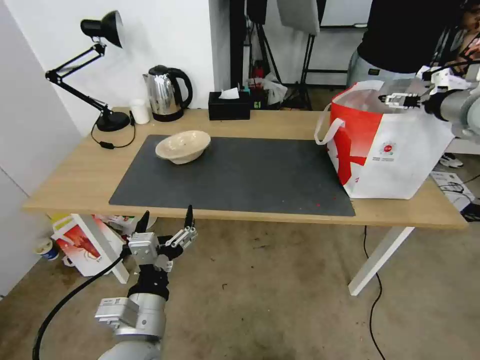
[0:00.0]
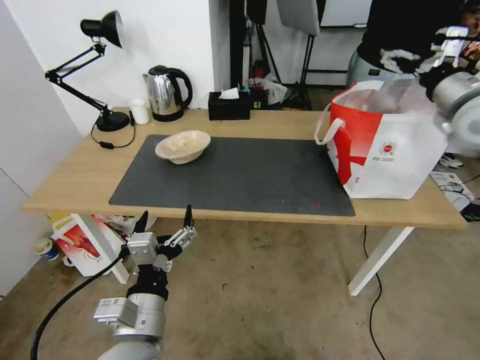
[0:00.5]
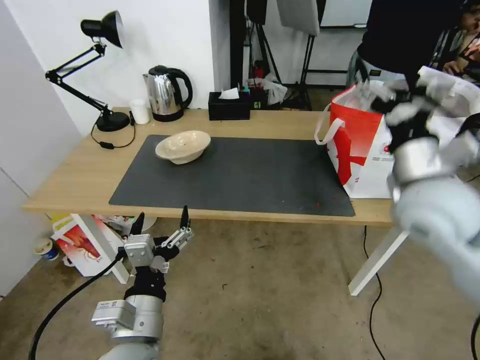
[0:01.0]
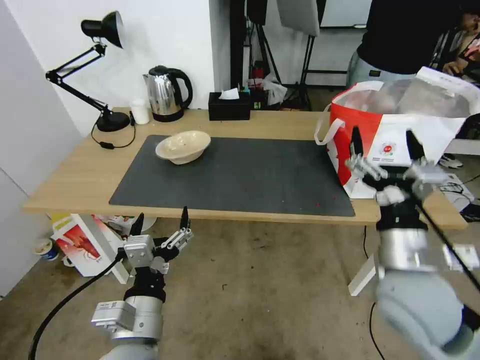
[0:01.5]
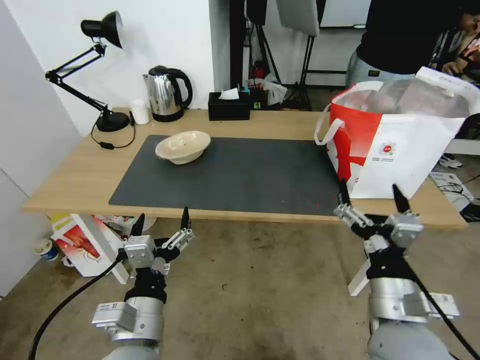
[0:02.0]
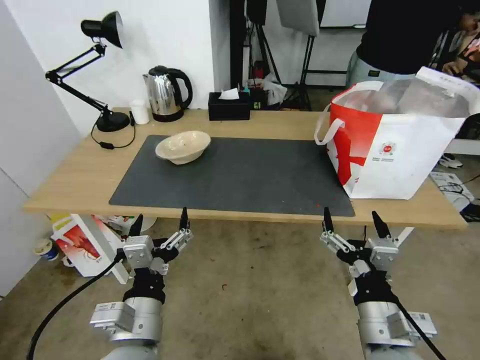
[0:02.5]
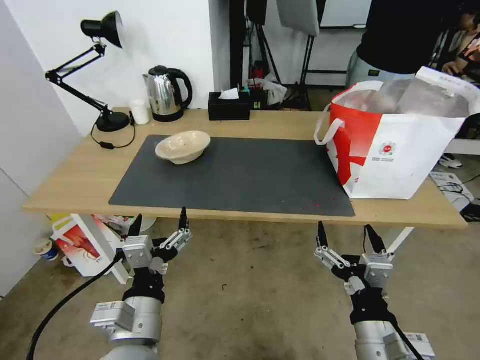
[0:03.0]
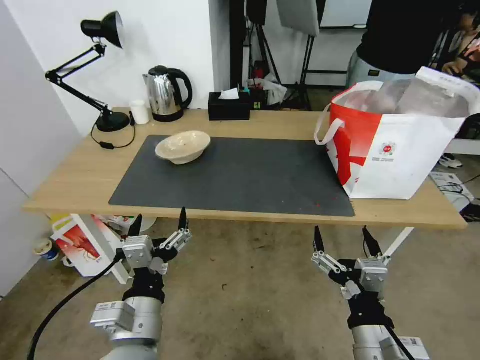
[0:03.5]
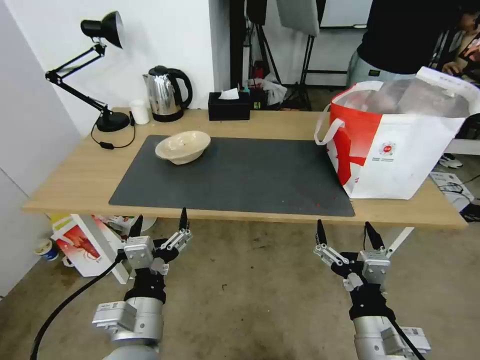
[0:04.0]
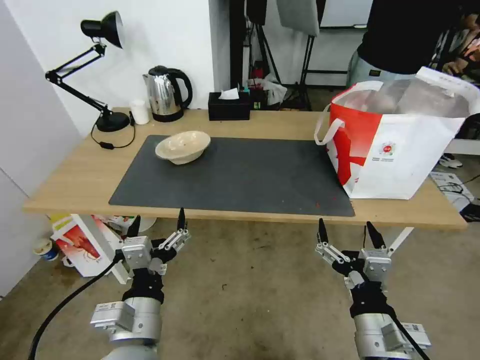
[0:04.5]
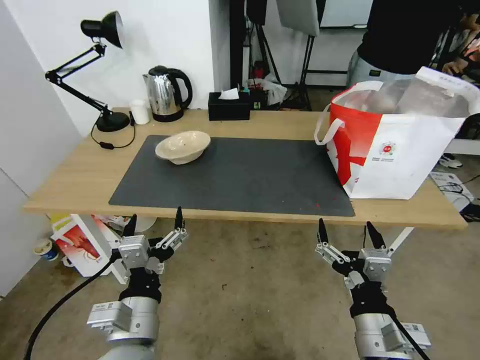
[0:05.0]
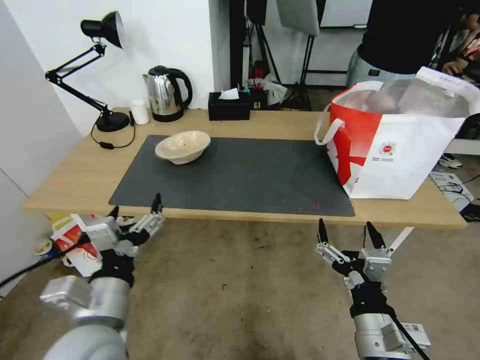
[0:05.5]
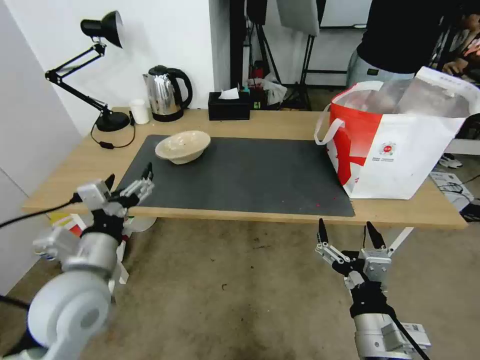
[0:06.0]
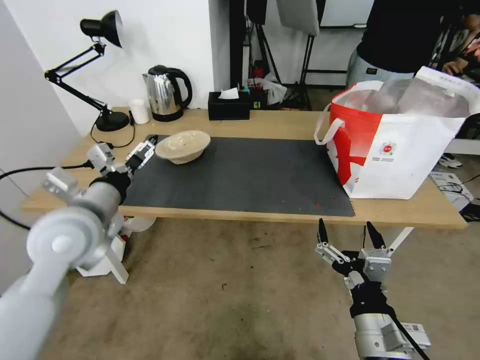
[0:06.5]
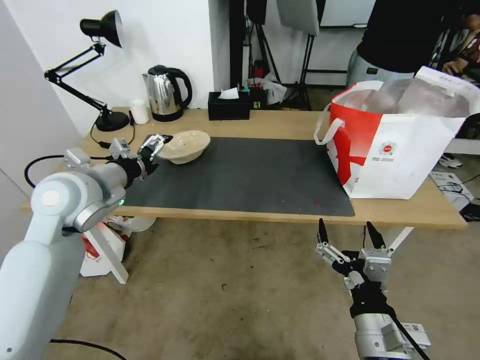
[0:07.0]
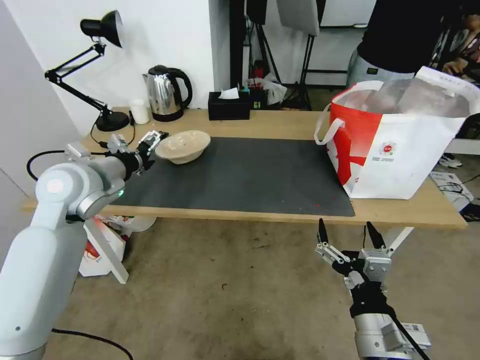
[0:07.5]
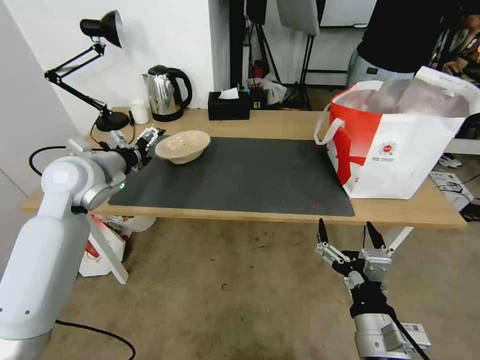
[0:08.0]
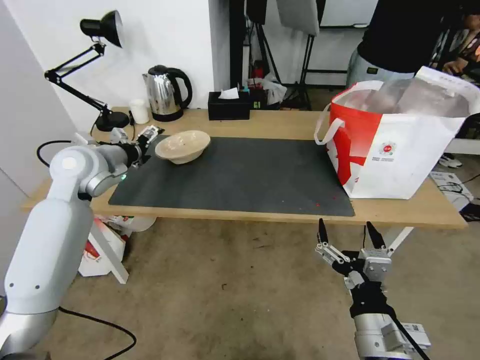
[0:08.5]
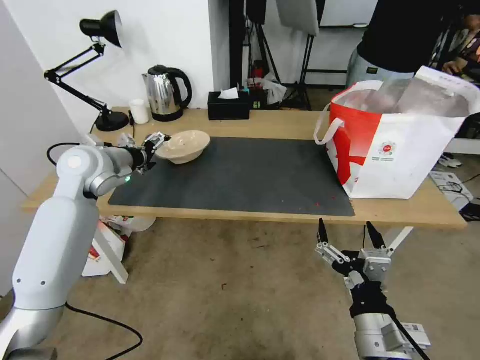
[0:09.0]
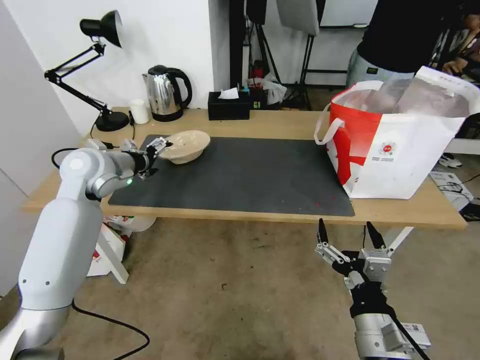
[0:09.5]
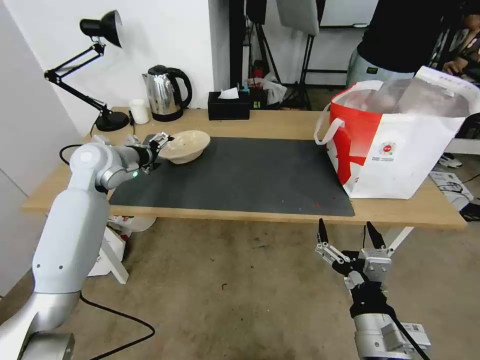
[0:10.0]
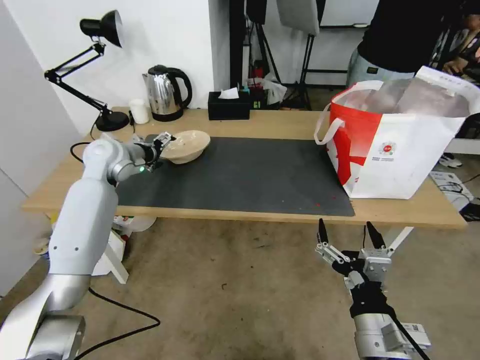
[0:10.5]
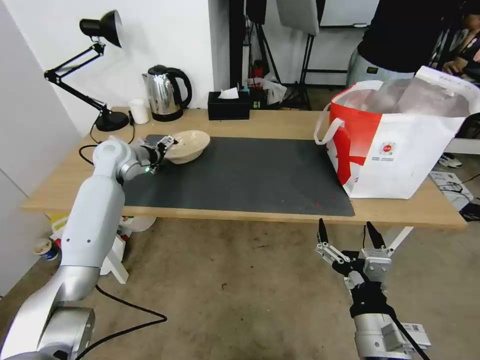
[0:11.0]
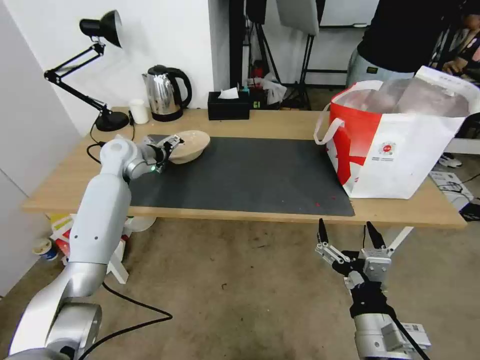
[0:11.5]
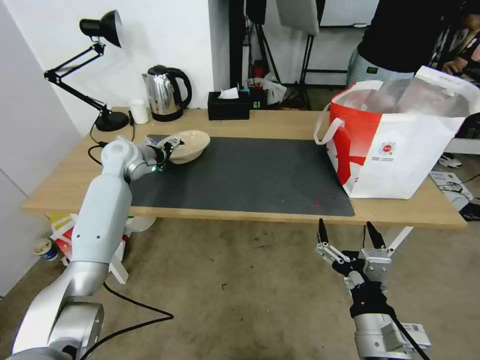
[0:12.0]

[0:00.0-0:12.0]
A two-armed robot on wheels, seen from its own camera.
Task of the whole recording: Pick up the trash from the table and place it into the takeout bag.
0:00.0 to 0:02.0: The right gripper moves backward, to the left and downward, some 40 cm.
0:02.0 to 0:04.0: The right gripper ends up roughly 5 cm from where it was.
0:04.0 to 0:06.0: The left gripper goes some 15 cm to the left, forward and upward.
0:06.0 to 0:08.0: The left gripper is displaced forward by roughly 20 cm.
0:08.0 to 0:10.0: The left gripper is displaced forward by approximately 5 cm.
0:10.0 to 0:12.0: The left gripper moves forward, approximately 10 cm.

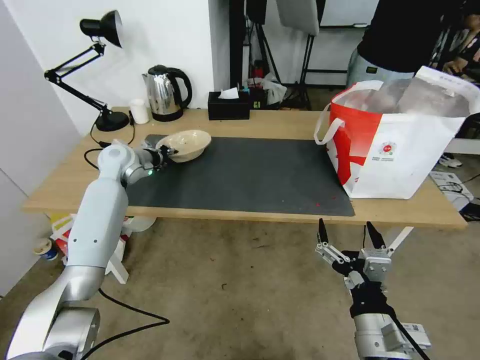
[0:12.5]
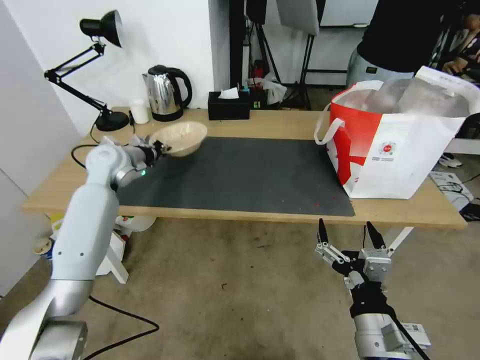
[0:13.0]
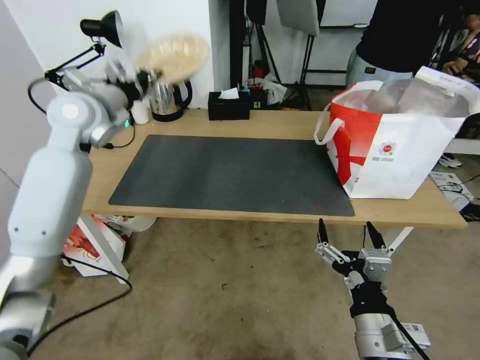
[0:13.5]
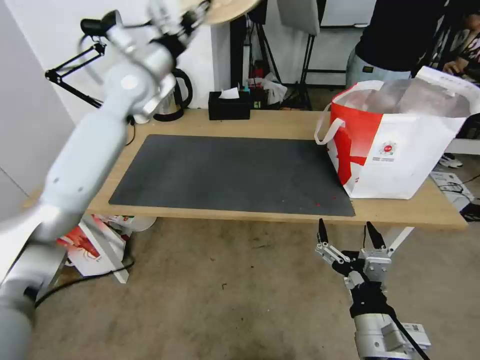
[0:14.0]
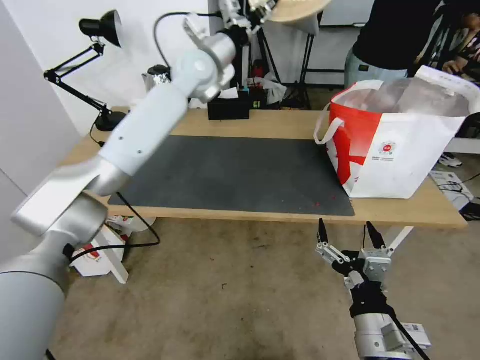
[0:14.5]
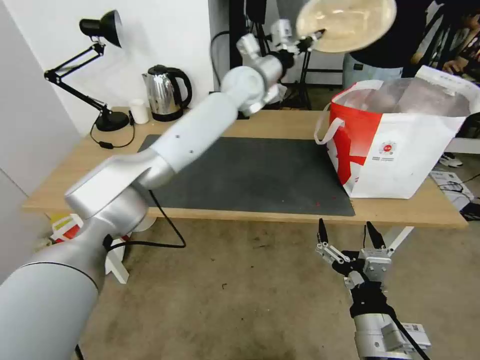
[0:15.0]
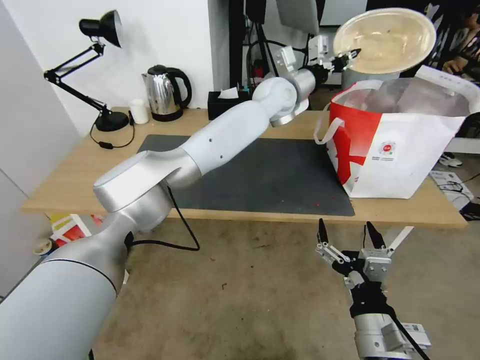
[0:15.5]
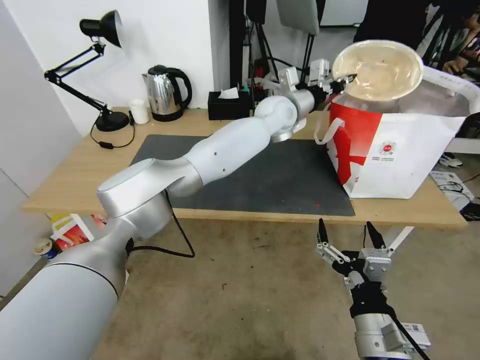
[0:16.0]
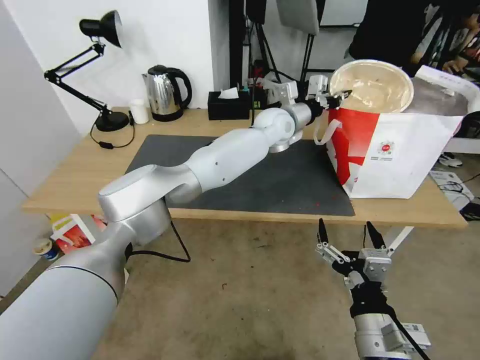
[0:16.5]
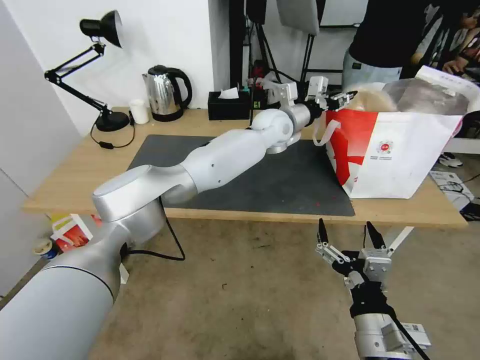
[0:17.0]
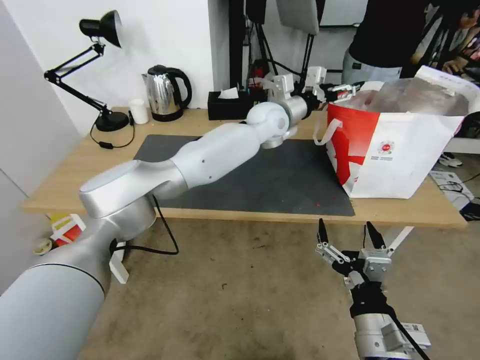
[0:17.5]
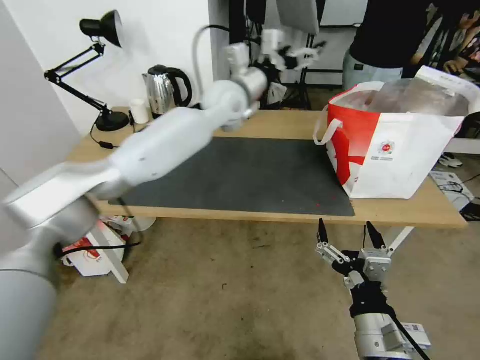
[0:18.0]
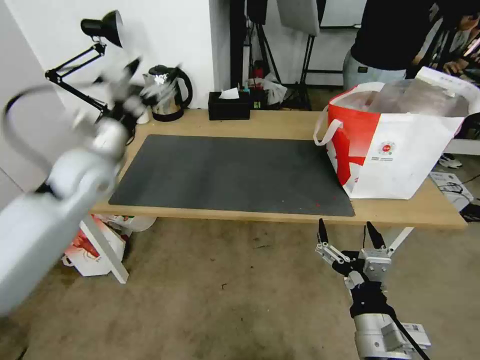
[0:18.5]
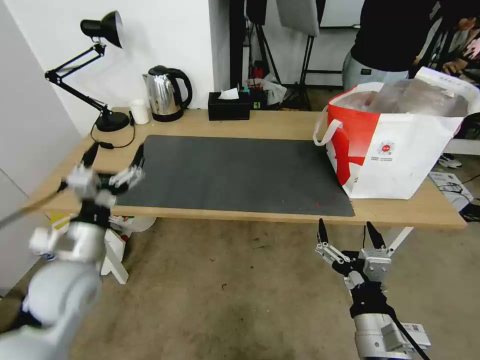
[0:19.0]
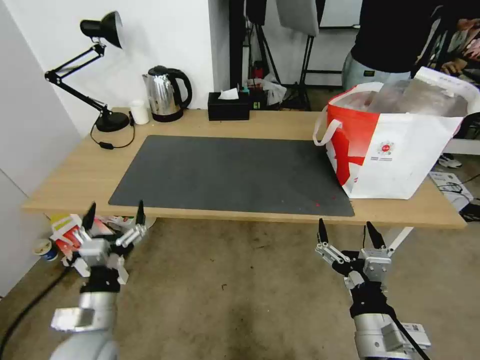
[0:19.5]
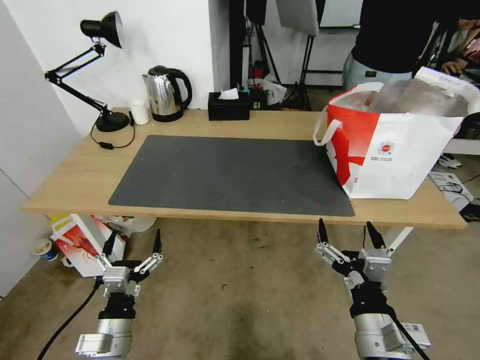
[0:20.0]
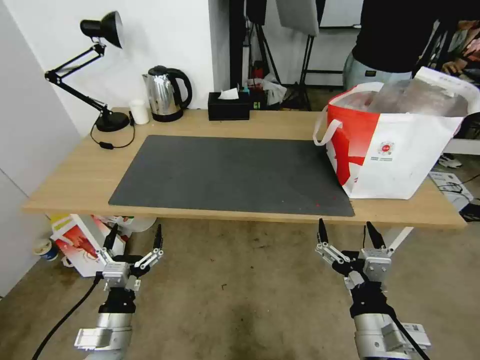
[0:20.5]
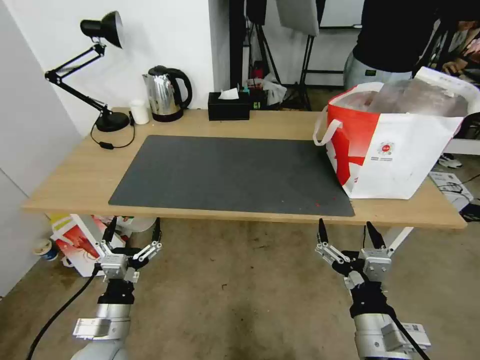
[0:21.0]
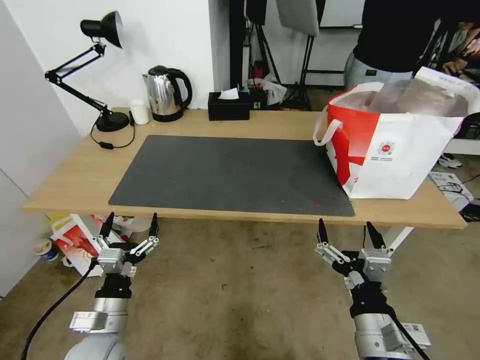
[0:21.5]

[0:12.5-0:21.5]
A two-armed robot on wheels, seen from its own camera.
Task of the whole recording: Pick up the trash from the table and place it into the takeout bag.
0:12.5 to 0:14.5: The left gripper shifts about 30 cm to the right and upward.
0:14.5 to 0:17.0: The left gripper is displaced to the right and downward by roughly 20 cm, and opens its fingers.
0:17.0 to 0:19.5: The left gripper is displaced backward, to the left and downward by approximately 60 cm, and opens.

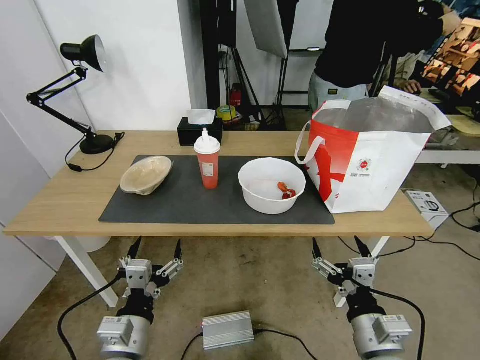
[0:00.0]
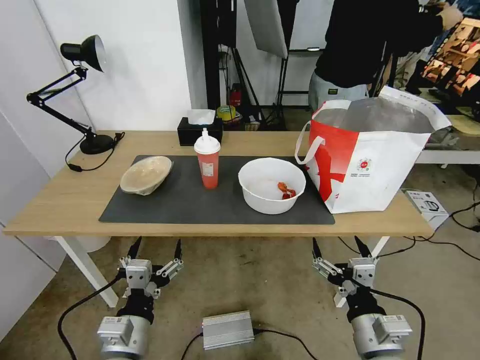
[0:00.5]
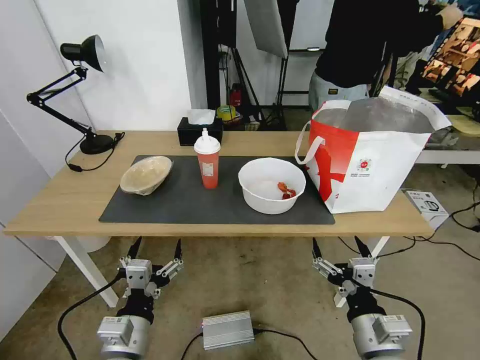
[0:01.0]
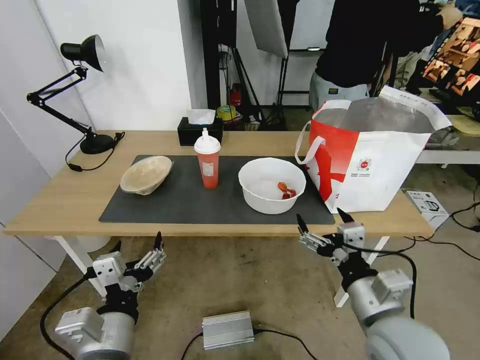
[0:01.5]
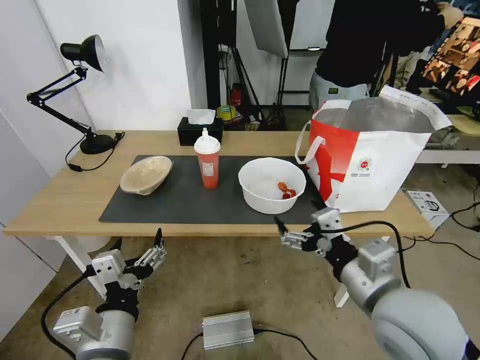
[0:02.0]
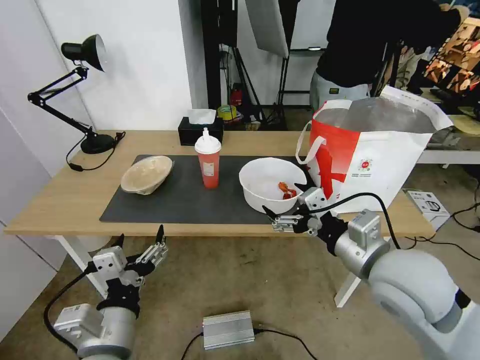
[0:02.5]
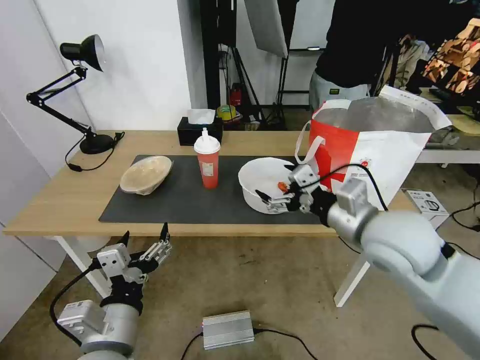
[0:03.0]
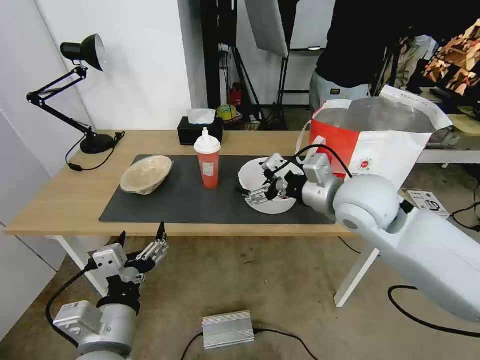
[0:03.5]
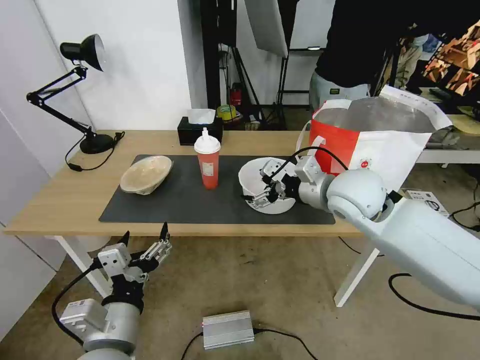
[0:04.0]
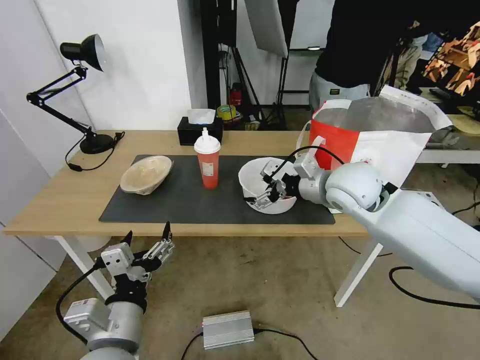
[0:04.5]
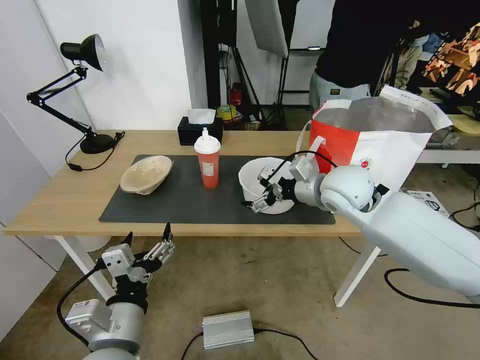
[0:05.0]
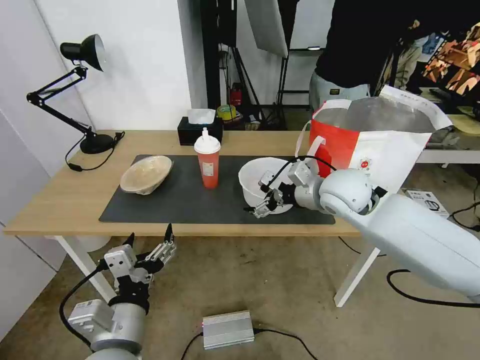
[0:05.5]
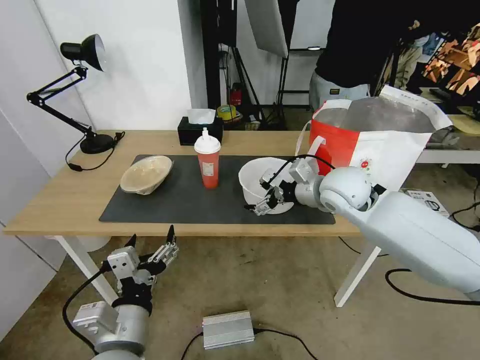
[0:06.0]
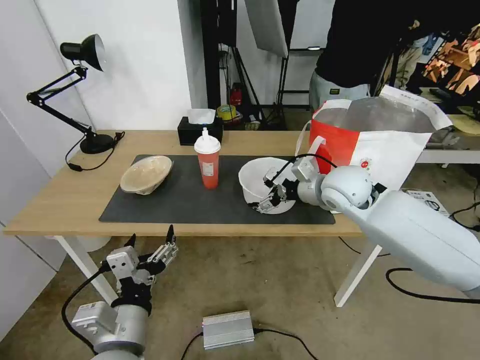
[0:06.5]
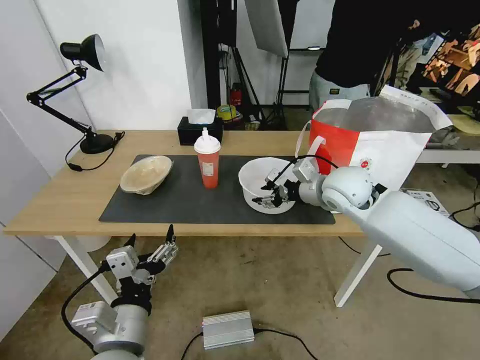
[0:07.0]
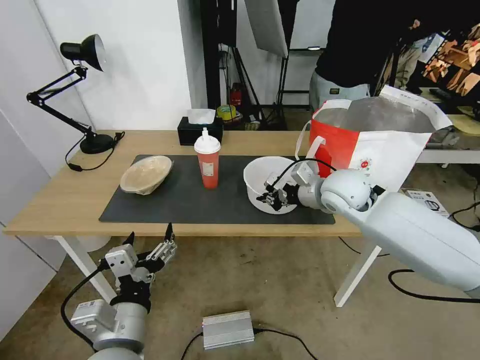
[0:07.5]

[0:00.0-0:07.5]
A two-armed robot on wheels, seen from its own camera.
Task of the whole recording: Pick up the trash from the table and place it into the takeout bag.
0:02.0 to 0:04.0: The right gripper goes roughly 20 cm forward.
0:04.0 to 0:05.5: The grippers move only a little.
0:05.5 to 0:07.5: The right gripper closes its fingers.
